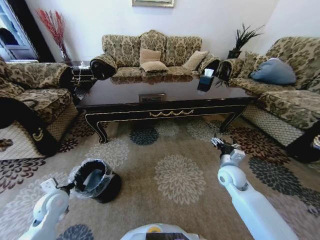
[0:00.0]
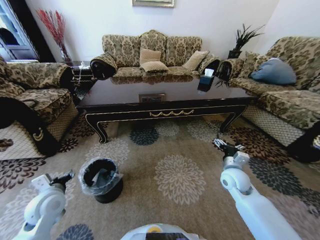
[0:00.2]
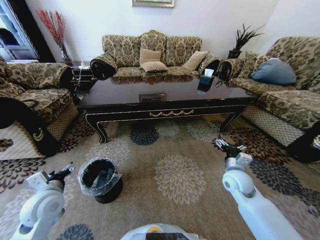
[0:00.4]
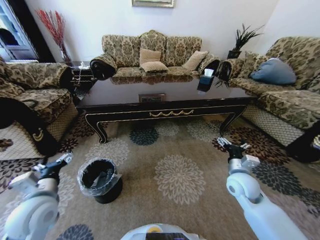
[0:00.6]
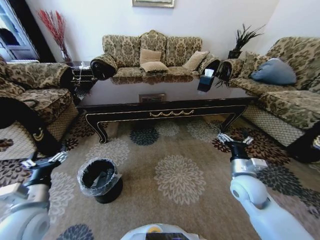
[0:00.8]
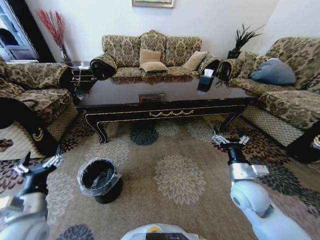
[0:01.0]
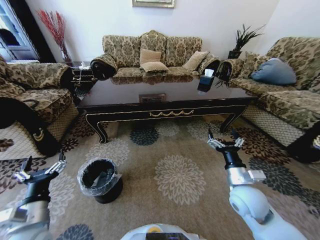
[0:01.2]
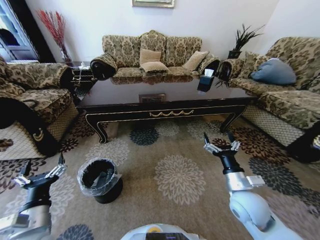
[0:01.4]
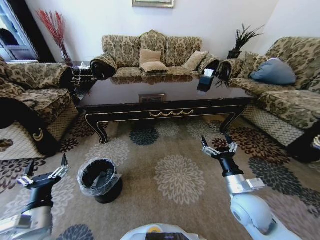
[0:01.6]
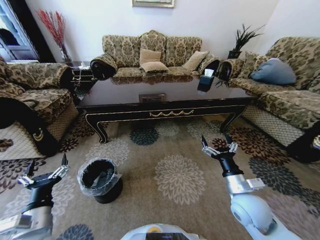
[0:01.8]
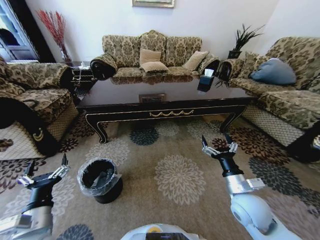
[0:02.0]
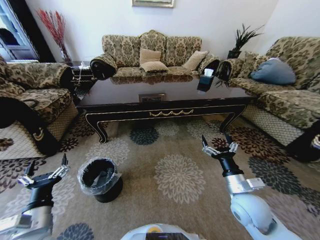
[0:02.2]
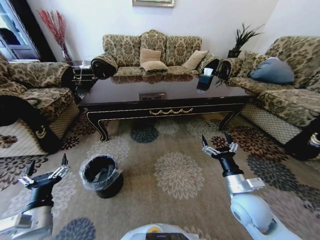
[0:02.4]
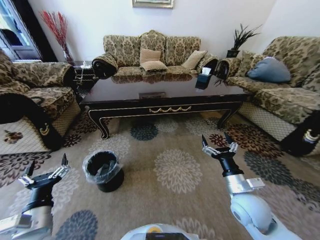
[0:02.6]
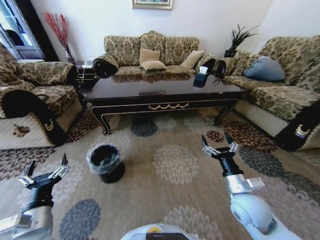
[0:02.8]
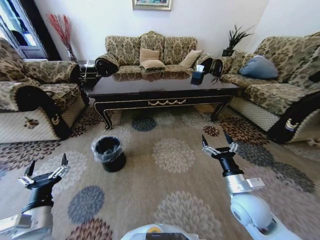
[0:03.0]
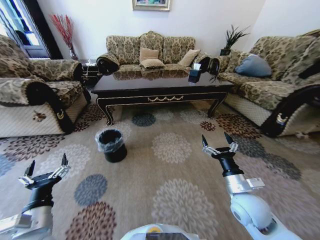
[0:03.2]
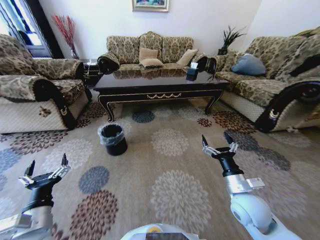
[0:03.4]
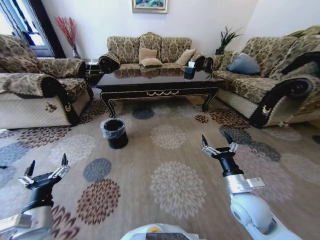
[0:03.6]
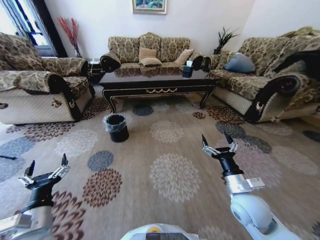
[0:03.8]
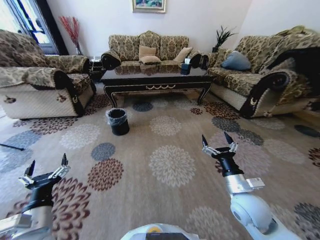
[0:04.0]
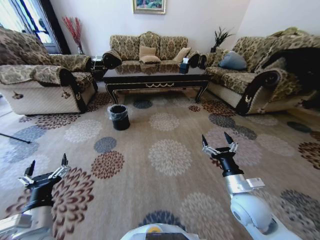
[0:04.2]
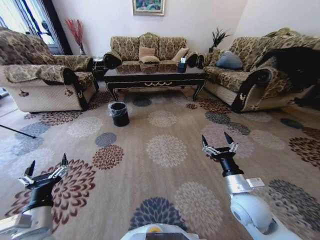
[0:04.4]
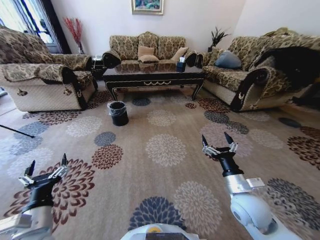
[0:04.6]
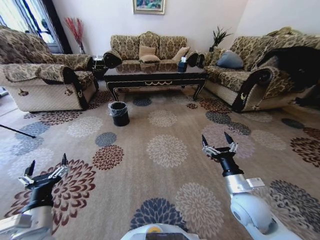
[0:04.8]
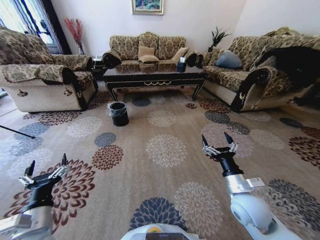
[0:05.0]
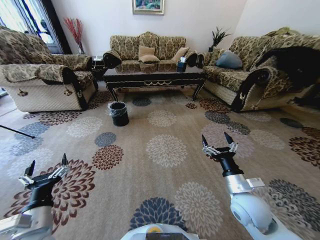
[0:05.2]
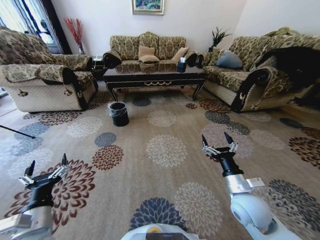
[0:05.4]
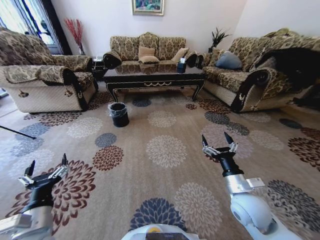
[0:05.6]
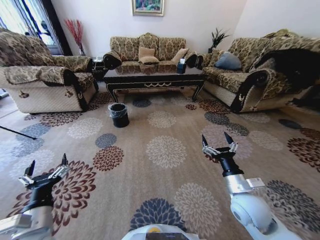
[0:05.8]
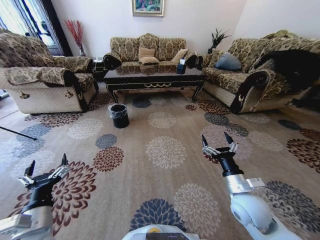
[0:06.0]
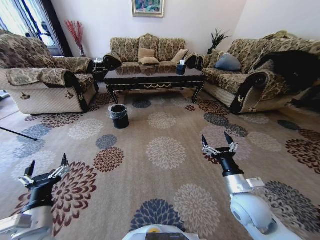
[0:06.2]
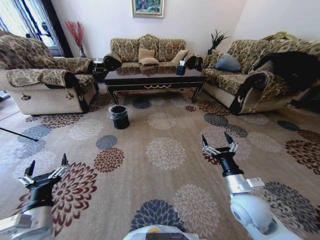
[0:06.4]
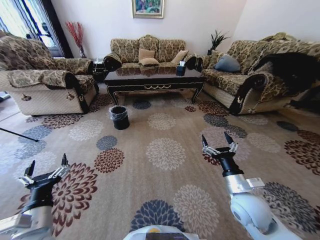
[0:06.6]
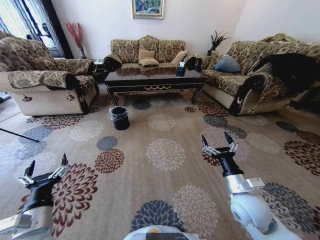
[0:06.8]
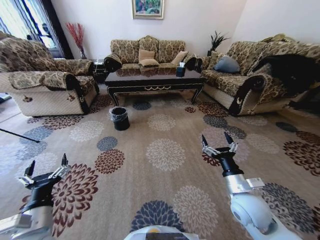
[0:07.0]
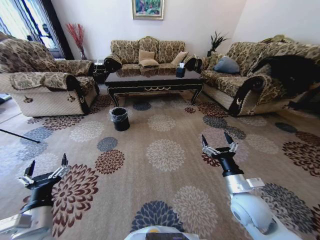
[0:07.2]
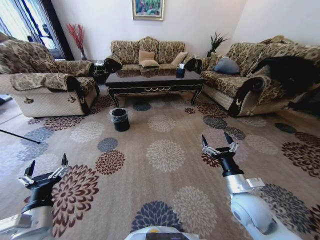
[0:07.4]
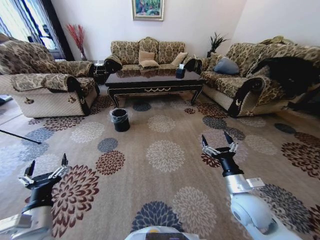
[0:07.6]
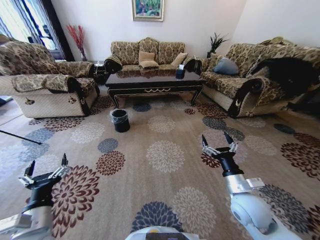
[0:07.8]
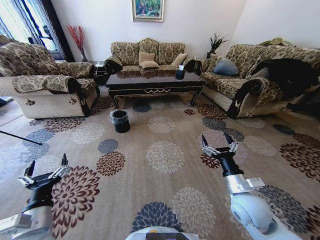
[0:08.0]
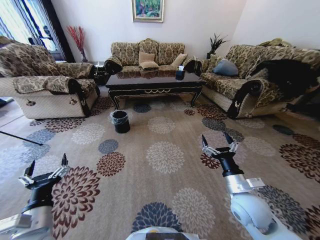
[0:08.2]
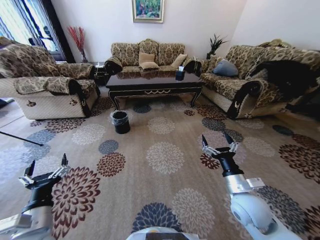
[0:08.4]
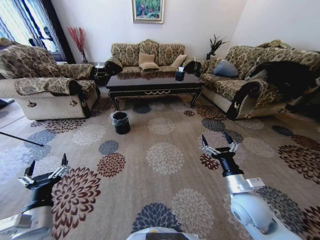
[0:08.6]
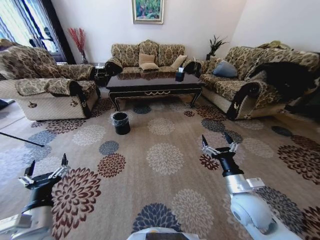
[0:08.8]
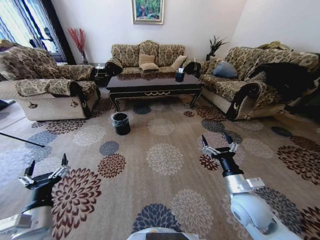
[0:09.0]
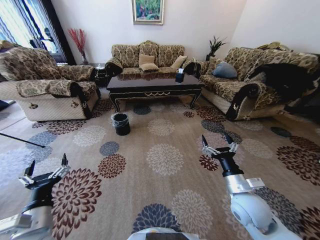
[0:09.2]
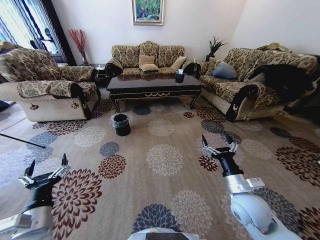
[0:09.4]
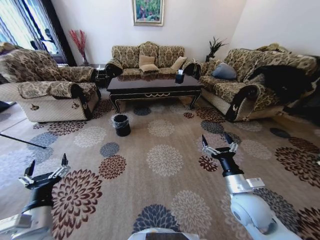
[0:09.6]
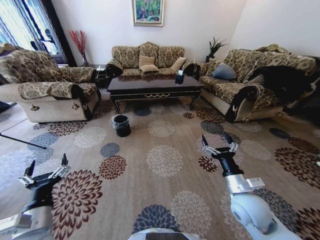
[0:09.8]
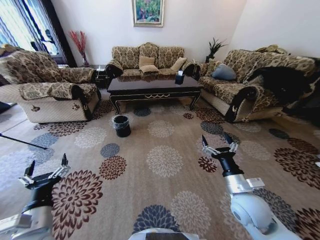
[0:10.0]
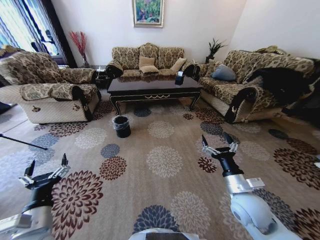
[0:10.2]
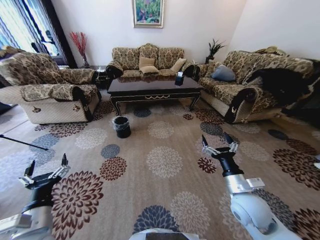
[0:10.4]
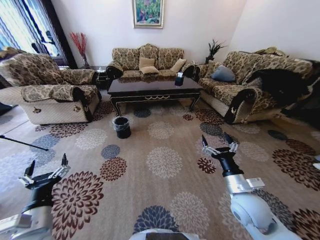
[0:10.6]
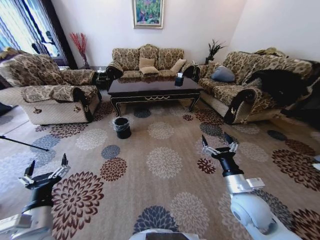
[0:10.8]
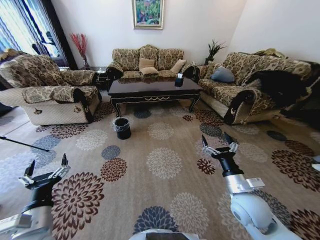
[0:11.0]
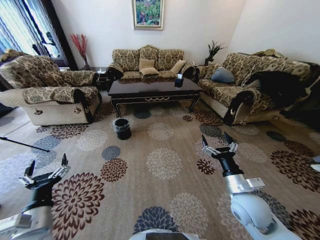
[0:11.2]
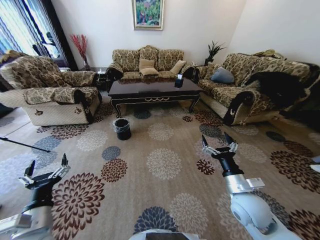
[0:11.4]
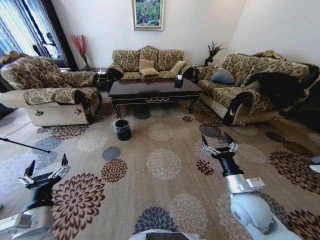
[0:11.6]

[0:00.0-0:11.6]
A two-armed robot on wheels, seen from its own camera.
Task of the whole recording: Move to the front of the table and pick up the trash from the floor, then place it into the trash bin.
0.0 to 1.4 s: The right gripper heads backward, covering about 10 cm; the left gripper goes about 15 cm backward, to the right and upward, and opens up.
4.4 to 5.8 s: Both grippers stay put.

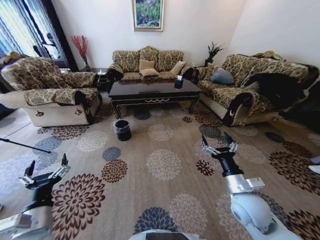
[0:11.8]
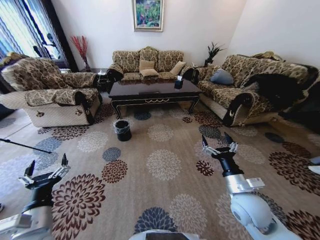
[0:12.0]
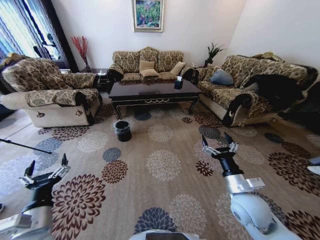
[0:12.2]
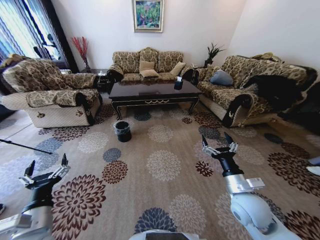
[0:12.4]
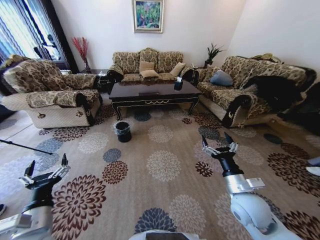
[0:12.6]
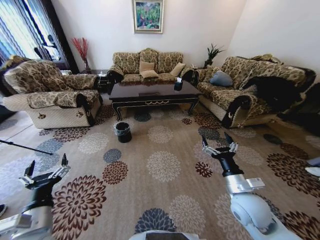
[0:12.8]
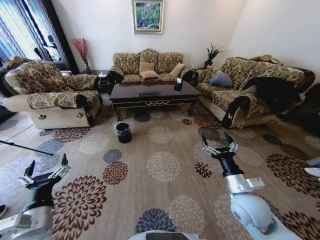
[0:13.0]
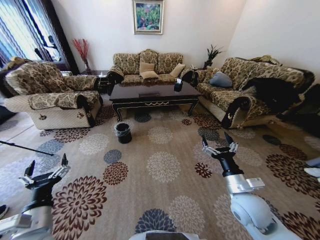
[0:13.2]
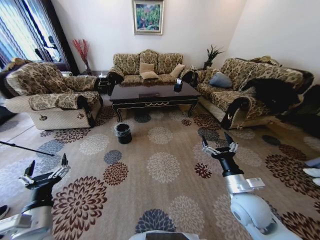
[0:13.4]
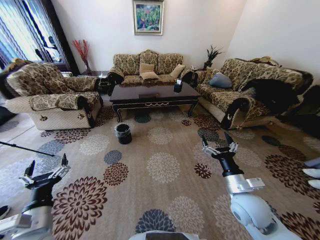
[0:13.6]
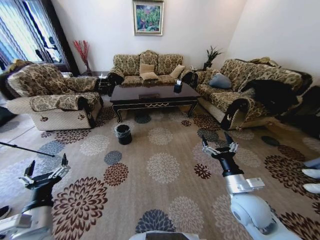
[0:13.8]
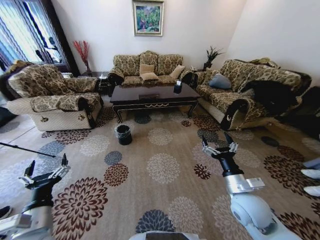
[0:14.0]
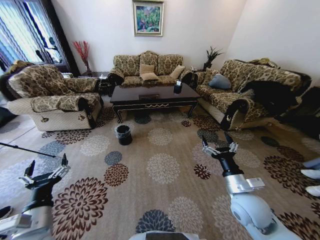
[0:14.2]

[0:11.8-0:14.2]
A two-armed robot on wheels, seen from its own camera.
Task of the whole recording: Move to the front of the table and pick up the trash from the floor, then place it into the trash bin.
11.8 to 14.2 s: Both grippers stay put.

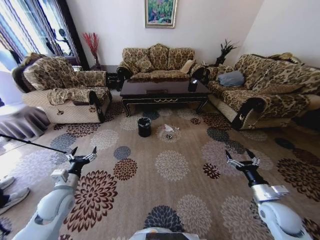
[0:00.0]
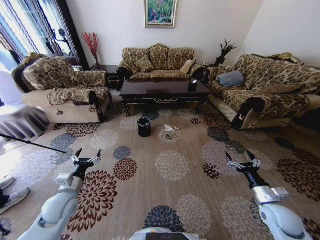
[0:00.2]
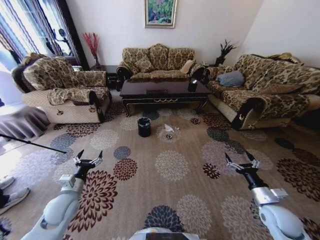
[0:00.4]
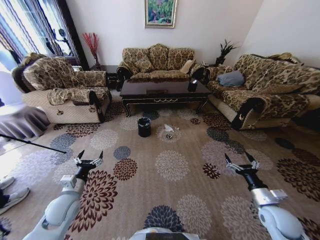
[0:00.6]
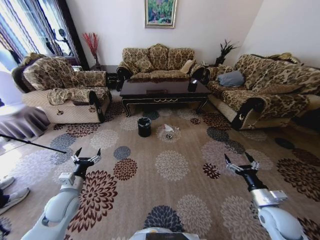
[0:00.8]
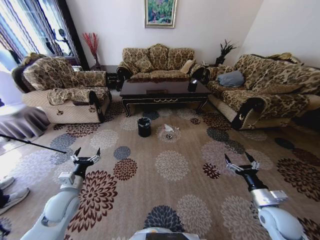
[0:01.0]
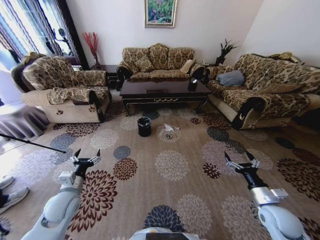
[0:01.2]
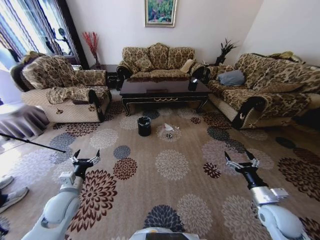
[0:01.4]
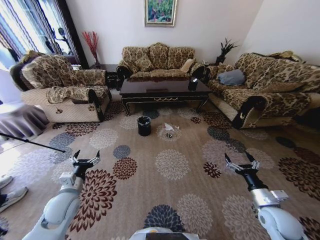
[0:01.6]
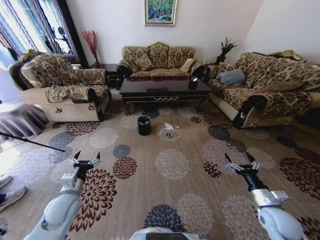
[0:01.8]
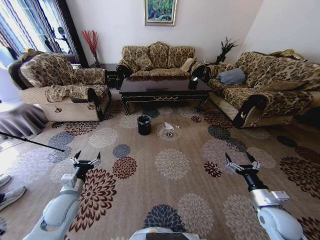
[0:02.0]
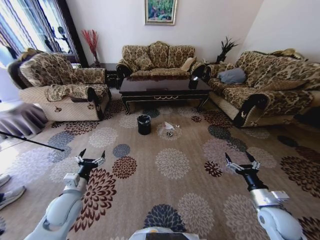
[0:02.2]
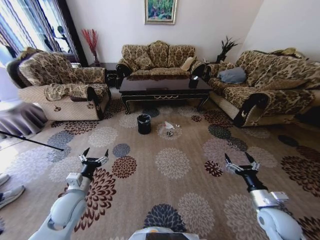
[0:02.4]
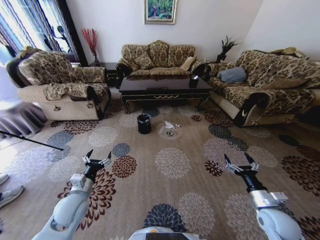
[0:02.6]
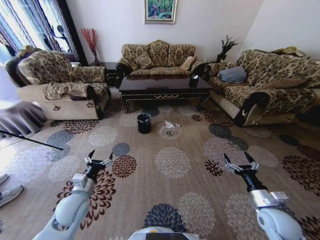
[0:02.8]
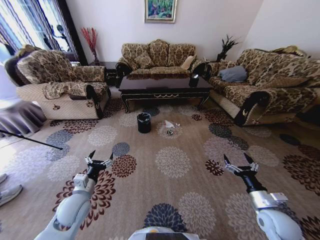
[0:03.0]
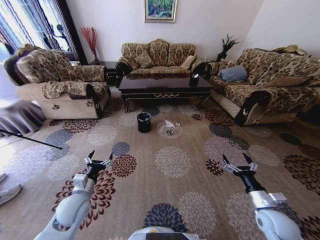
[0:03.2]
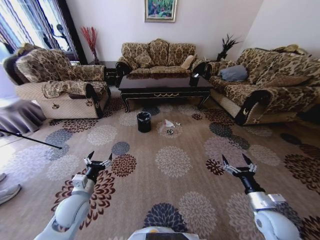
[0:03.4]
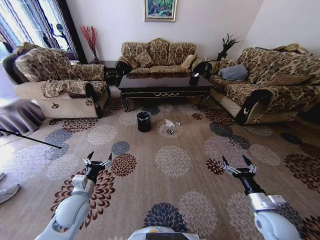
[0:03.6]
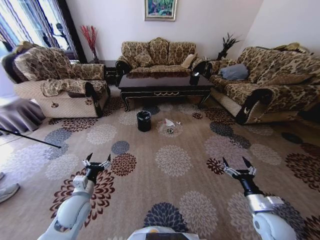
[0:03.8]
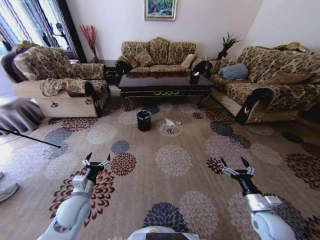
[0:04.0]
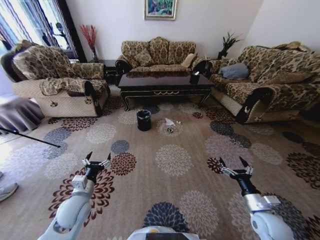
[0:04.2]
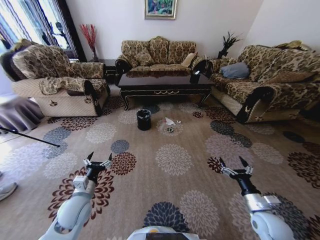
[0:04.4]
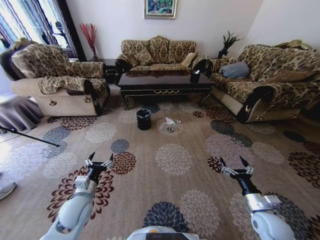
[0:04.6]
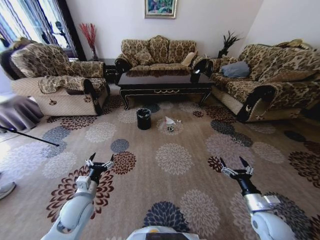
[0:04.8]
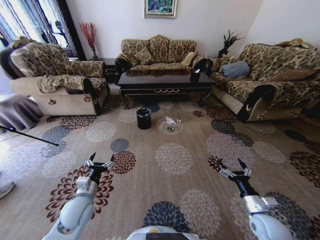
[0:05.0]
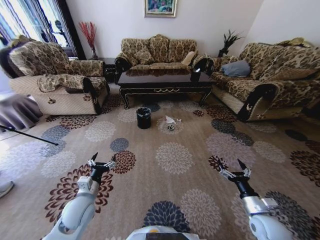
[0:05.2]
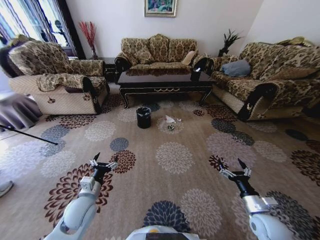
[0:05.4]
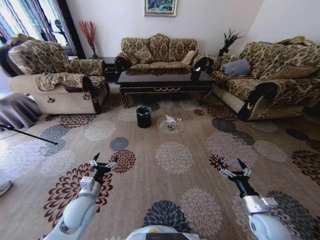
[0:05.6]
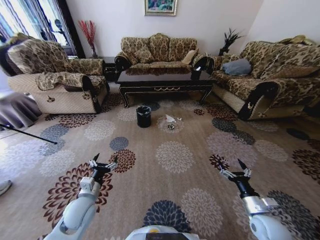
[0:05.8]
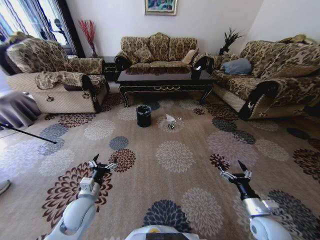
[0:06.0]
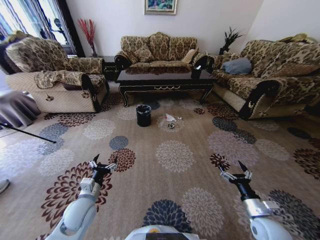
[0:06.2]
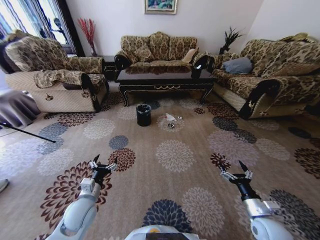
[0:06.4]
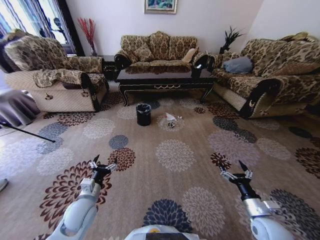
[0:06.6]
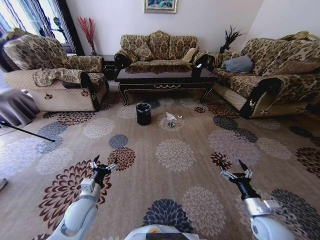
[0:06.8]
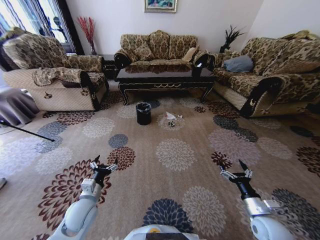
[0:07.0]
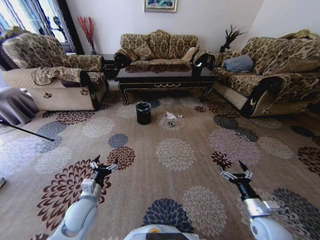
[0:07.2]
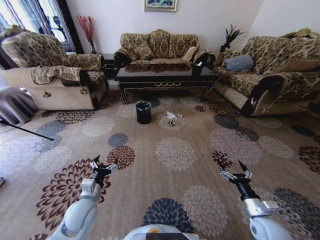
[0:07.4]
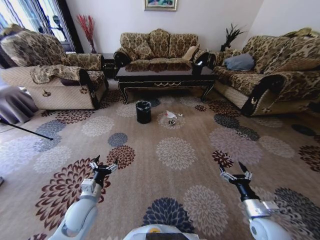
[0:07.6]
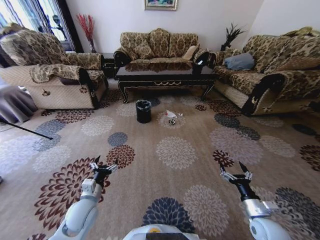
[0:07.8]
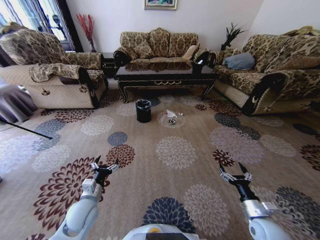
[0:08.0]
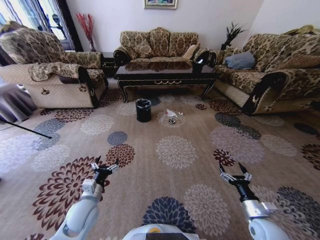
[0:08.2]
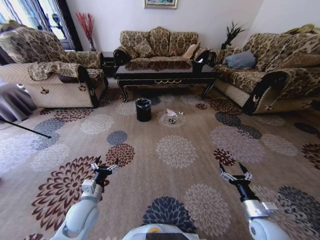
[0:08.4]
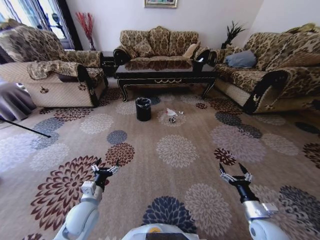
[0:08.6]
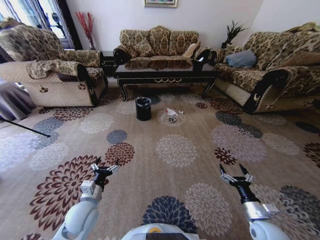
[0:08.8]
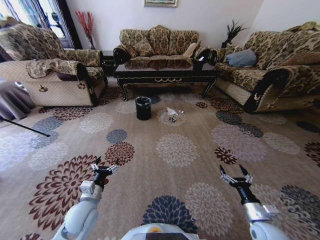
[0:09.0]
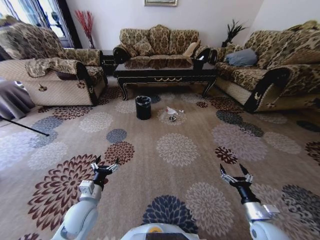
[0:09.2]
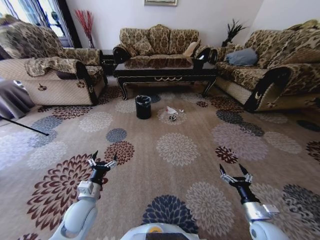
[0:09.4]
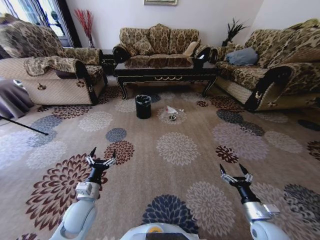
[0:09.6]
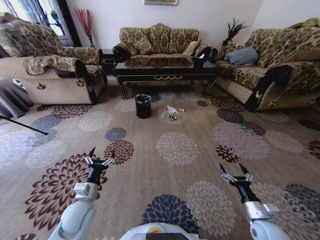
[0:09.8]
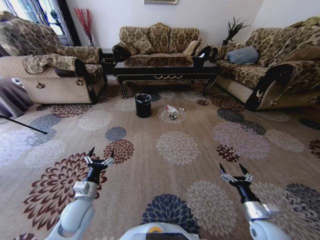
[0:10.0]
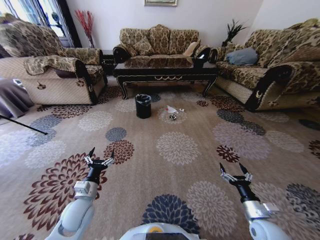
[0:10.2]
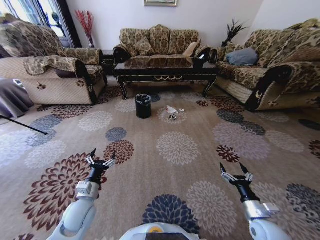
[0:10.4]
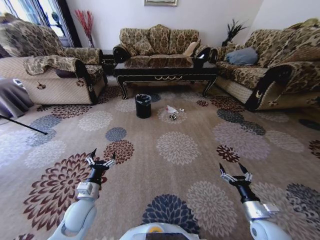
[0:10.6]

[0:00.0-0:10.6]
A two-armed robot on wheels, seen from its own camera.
Task of the whole recording: Move to the front of the table and pick up the trash from the floor, then place it into the trash bin.
9.0 to 10.6 s: The grippers stay close to where they were, moving slightly.
